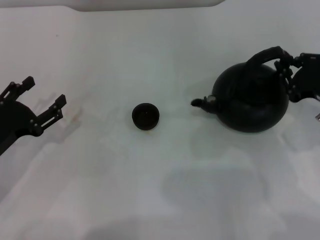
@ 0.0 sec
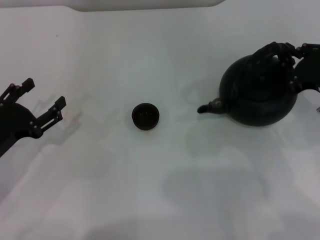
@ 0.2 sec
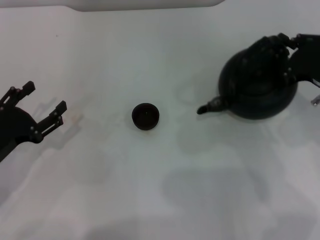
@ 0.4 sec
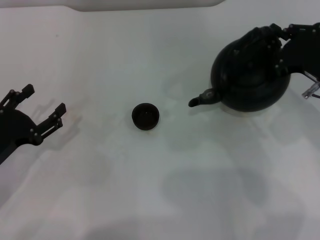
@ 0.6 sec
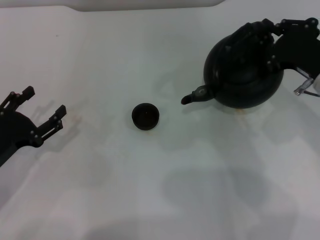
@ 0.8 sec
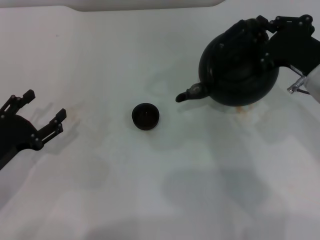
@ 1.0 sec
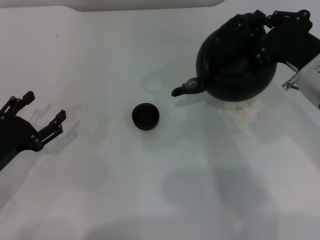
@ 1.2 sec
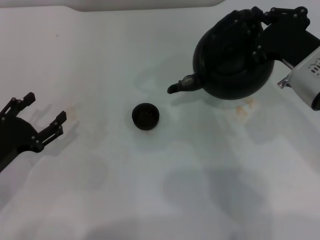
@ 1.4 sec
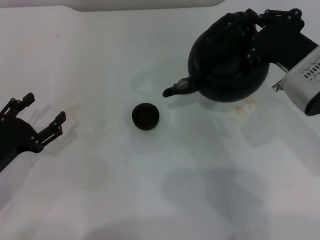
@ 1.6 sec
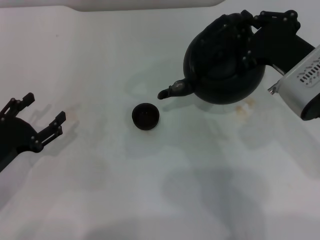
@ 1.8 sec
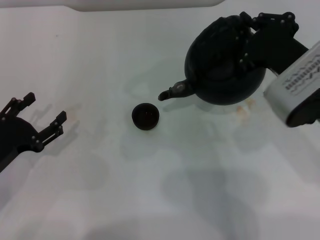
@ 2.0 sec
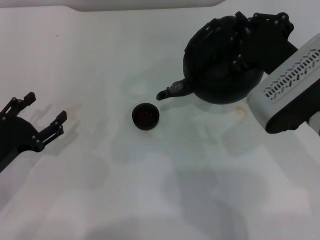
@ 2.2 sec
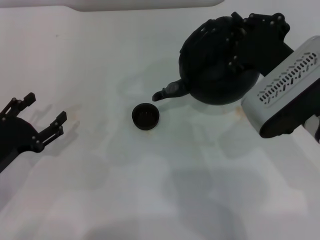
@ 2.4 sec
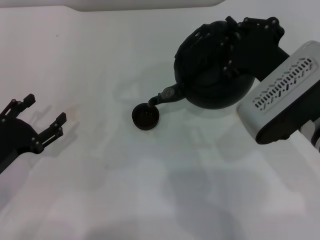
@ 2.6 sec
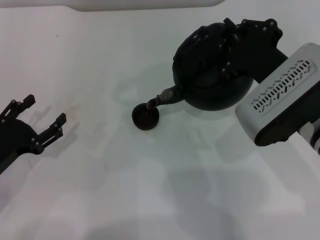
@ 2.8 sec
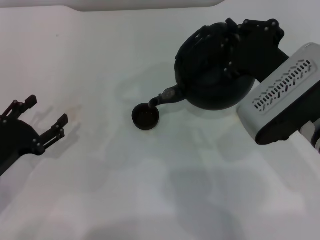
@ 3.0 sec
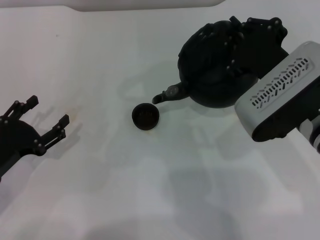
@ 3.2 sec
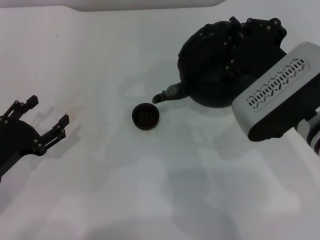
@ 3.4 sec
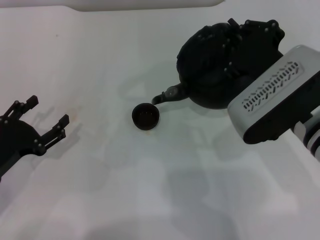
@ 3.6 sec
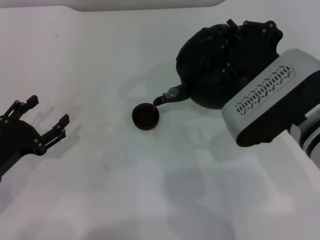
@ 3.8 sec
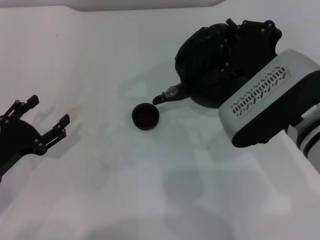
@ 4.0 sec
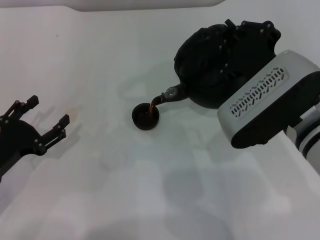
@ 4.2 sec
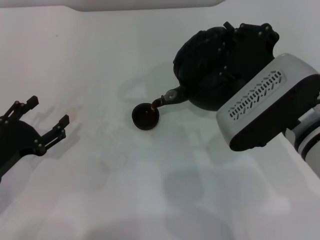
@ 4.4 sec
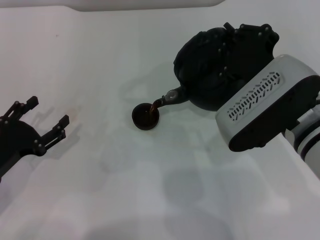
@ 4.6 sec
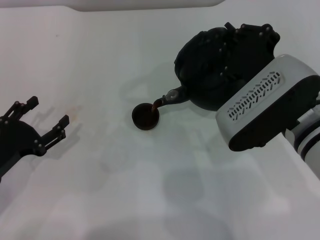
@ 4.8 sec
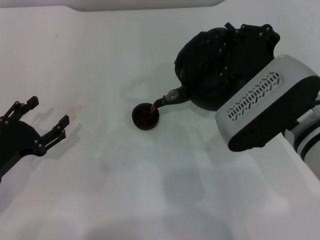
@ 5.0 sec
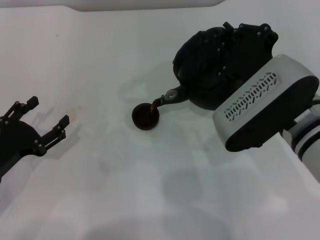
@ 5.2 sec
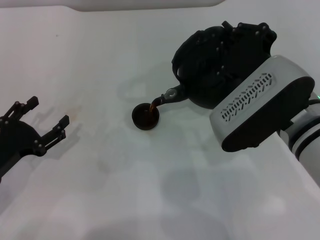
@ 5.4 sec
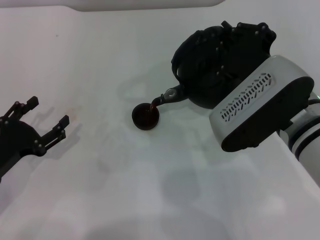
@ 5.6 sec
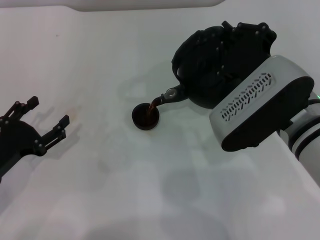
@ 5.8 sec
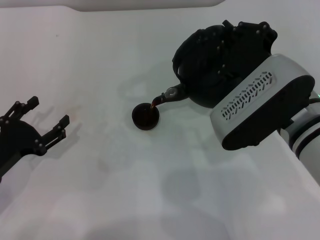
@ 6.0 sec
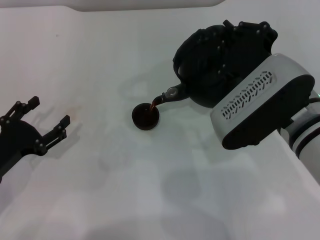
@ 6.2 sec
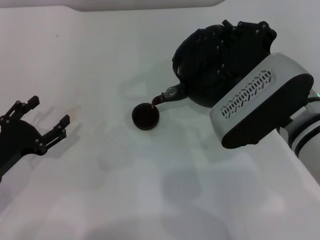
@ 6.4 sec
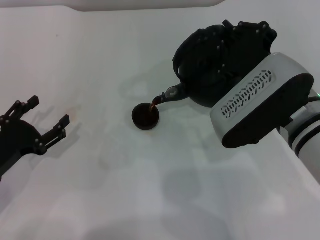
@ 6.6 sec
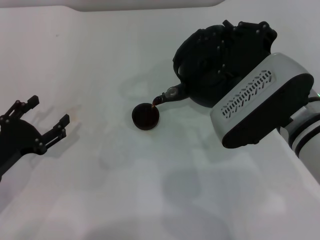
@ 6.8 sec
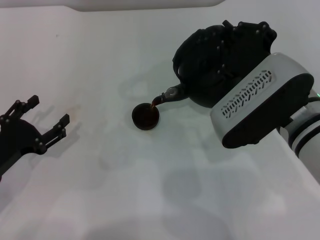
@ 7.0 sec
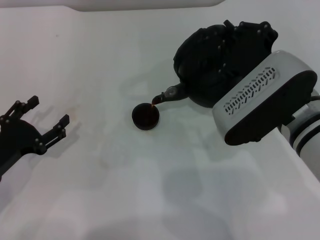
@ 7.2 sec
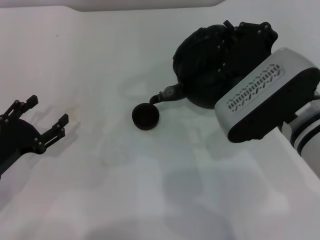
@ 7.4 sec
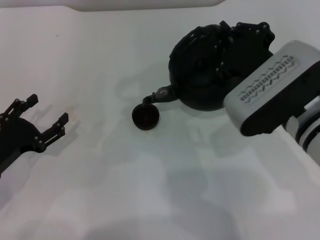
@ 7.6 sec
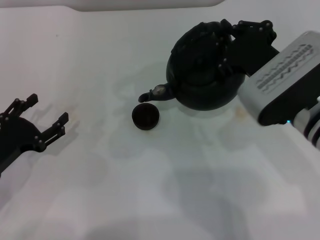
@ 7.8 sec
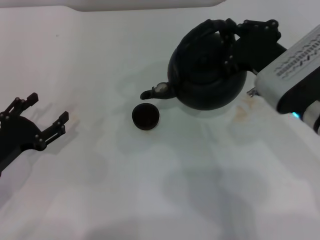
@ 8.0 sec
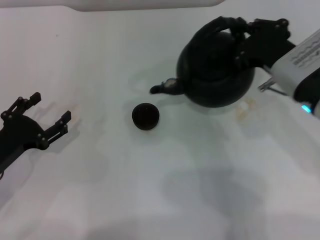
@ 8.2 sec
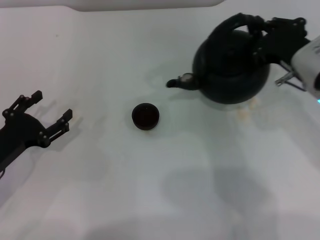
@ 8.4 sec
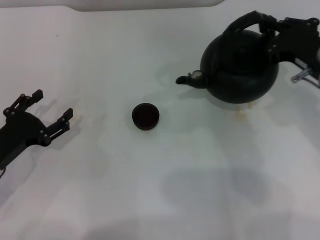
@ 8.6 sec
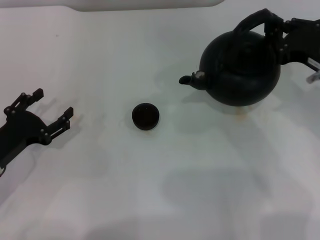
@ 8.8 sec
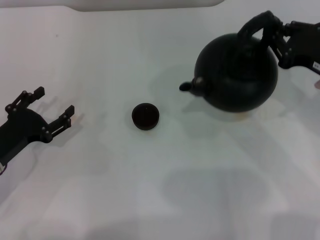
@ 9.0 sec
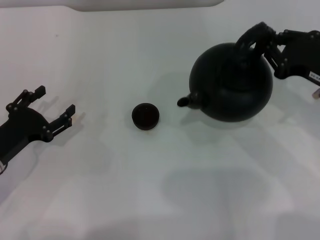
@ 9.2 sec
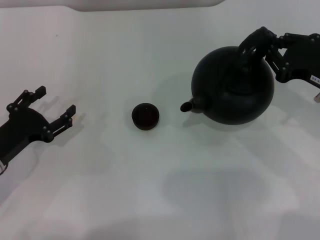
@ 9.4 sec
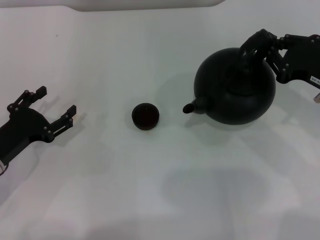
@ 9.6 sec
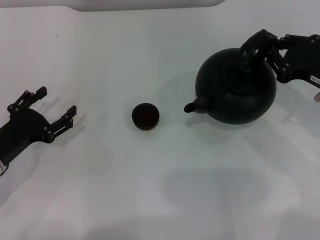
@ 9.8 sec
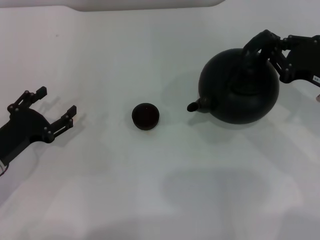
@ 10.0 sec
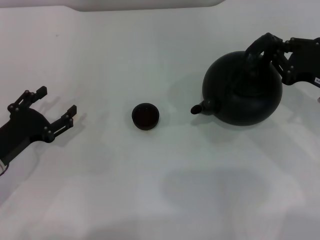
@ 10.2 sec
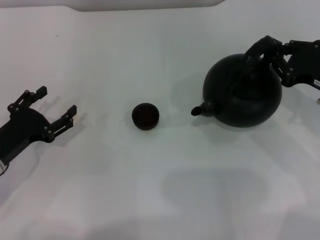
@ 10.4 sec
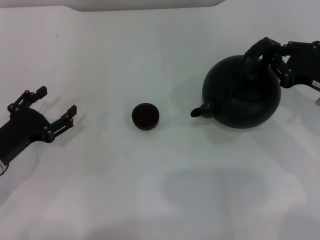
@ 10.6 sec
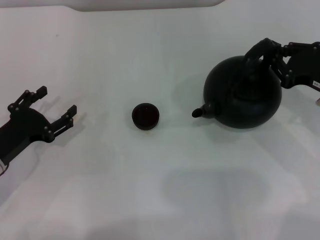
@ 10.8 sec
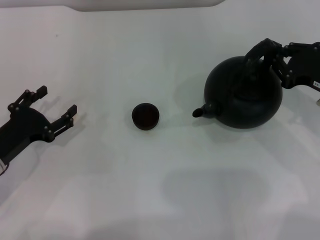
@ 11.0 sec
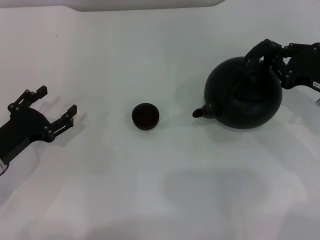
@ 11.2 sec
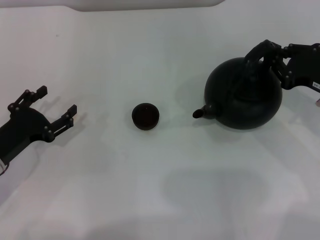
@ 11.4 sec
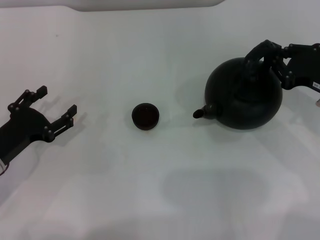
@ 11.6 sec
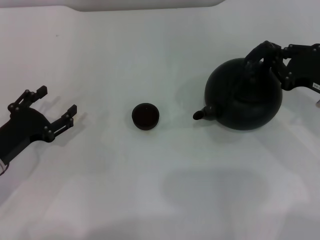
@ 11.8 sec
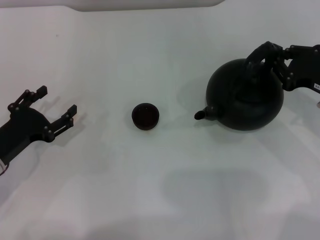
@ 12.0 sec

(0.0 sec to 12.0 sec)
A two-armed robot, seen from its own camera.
Task of the whole recording: Grasp the handle of the teapot with one hand and pour tea into the teacup.
Step, 1.0 sec - 8.2 sec: Pour tea into the teacup with the right gripper.
0.0 sec - 1.6 sec: The right gripper moves to the left, roughly 10 cm.
1.6 sec - 3.0 sec: The grippers move only a little.
3.0 sec - 4.4 sec: The grippers move only a little.
4.4 sec - 6.0 sec: Both grippers stay about where they are.
6.0 sec - 7.6 sec: The grippers make only small movements.
7.6 sec - 9.0 sec: The right gripper travels to the right by some 10 cm.
9.0 sec - 10.4 sec: The grippers stay close to where they were, moving slightly.
10.4 sec - 12.0 sec: Neither gripper changes place.

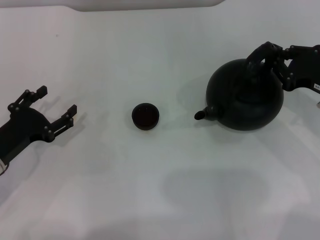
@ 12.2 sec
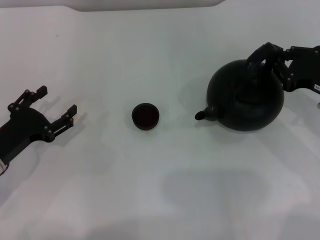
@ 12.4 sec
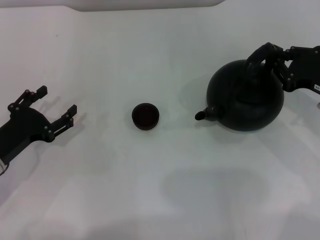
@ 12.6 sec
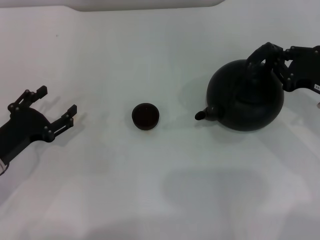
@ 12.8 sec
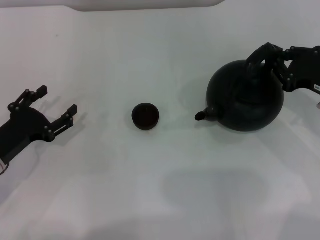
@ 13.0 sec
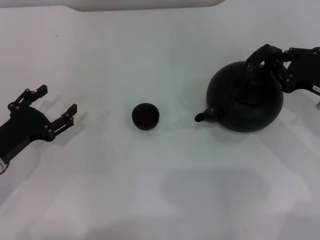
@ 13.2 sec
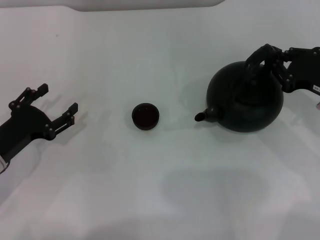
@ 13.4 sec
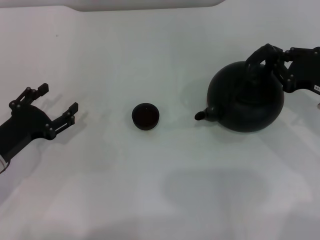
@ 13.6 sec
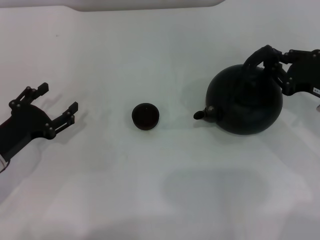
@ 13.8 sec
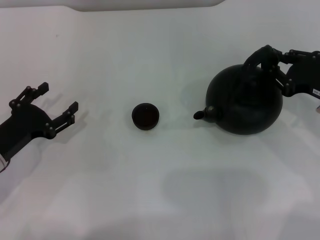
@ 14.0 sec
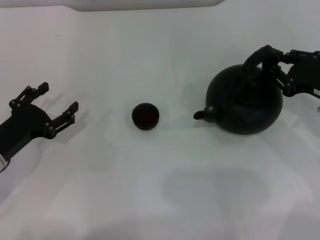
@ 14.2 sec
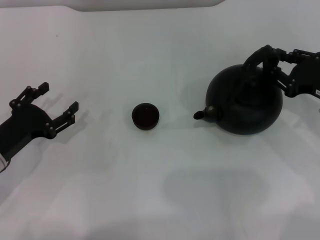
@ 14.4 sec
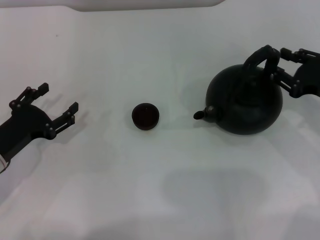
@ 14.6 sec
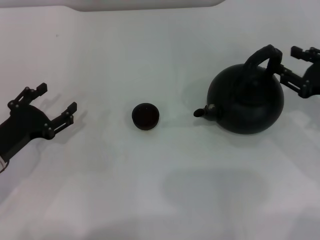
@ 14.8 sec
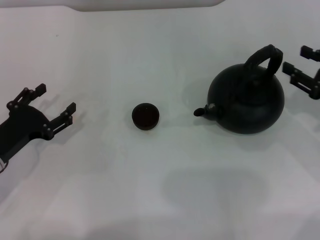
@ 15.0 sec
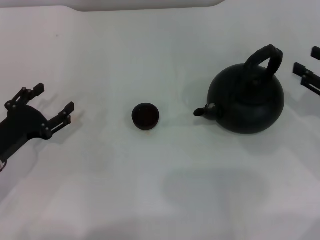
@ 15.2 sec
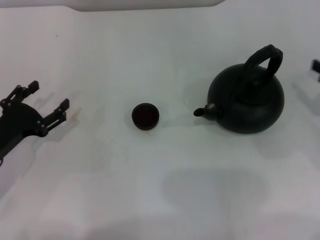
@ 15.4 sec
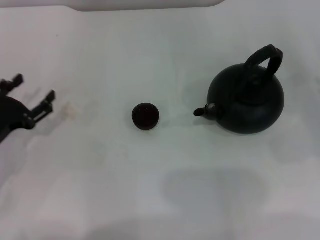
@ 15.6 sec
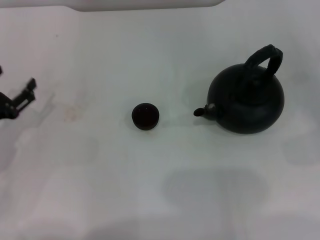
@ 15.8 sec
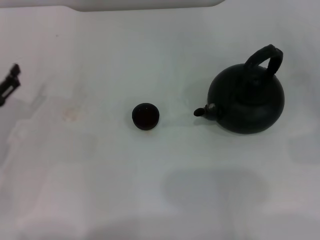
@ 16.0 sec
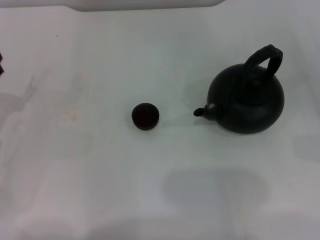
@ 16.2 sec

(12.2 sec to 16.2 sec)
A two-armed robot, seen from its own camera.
Task of the whole recording: Grasp the handle of the teapot with one hand and pour tea into the teacup.
Step, 12.2 sec - 15.0 sec: Put down the teapot with the right gripper.
12.2 sec - 13.6 sec: Both grippers stay about where they are.
13.6 sec - 14.8 sec: The right gripper opens up.
14.8 sec - 16.2 sec: The right gripper goes approximately 10 cm to the right. The left gripper shifts by some 5 cm.
